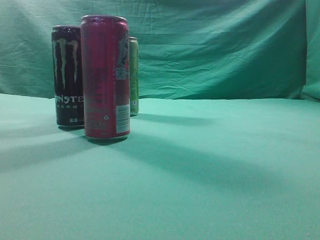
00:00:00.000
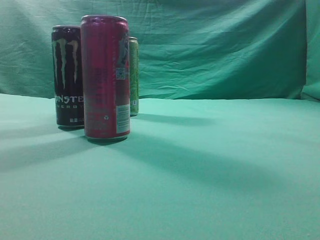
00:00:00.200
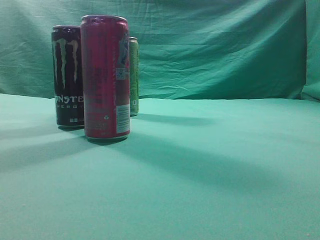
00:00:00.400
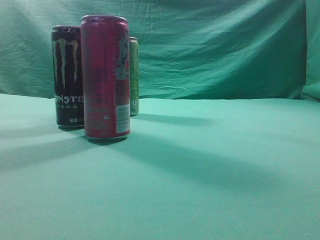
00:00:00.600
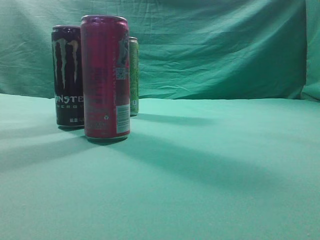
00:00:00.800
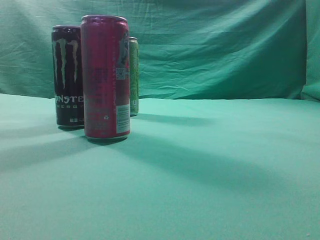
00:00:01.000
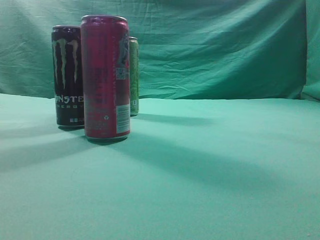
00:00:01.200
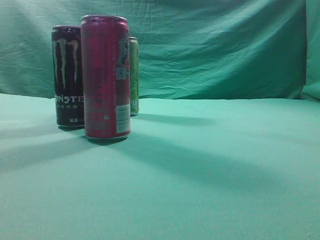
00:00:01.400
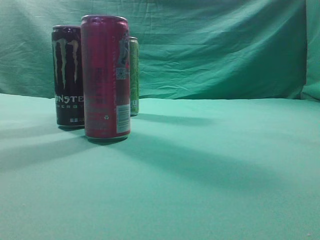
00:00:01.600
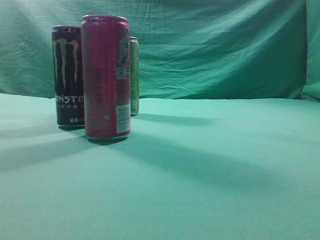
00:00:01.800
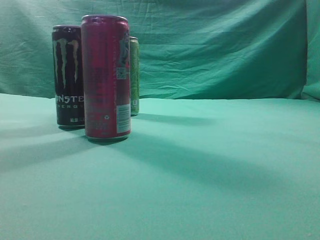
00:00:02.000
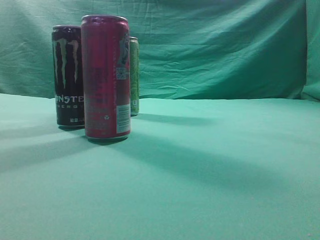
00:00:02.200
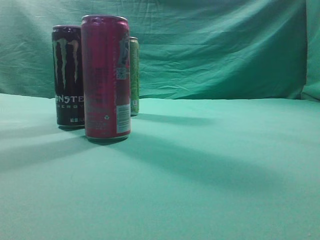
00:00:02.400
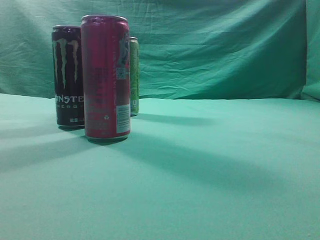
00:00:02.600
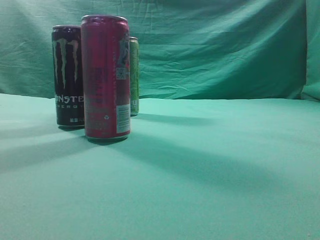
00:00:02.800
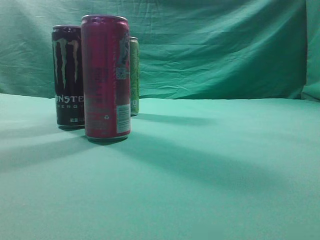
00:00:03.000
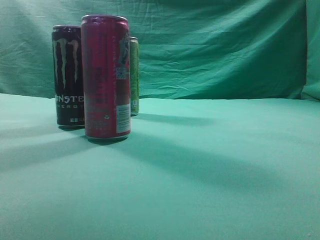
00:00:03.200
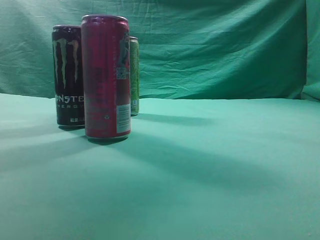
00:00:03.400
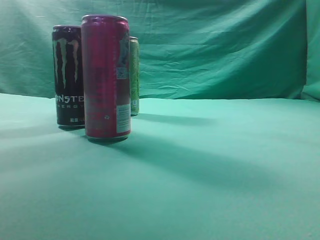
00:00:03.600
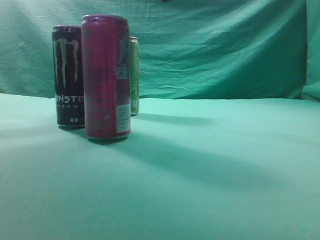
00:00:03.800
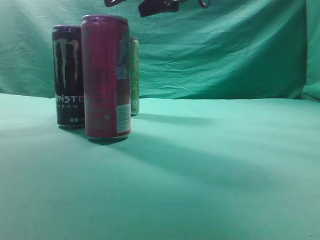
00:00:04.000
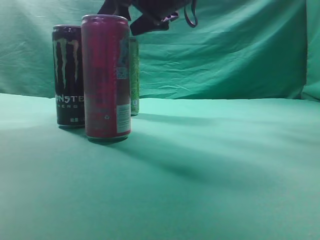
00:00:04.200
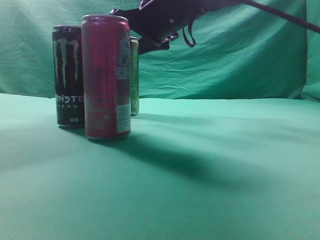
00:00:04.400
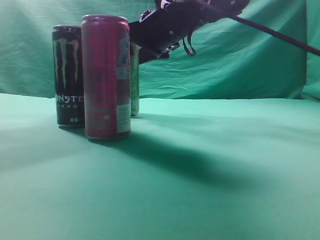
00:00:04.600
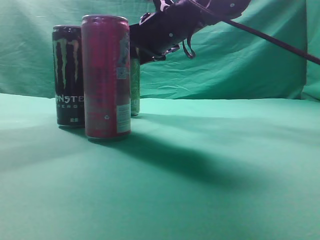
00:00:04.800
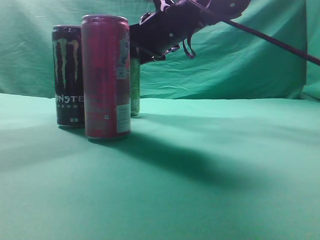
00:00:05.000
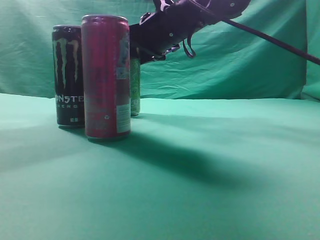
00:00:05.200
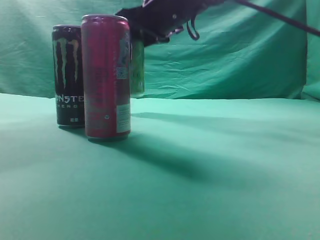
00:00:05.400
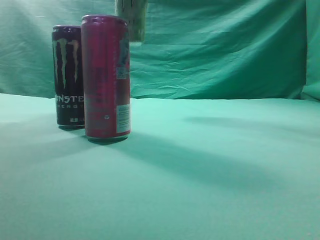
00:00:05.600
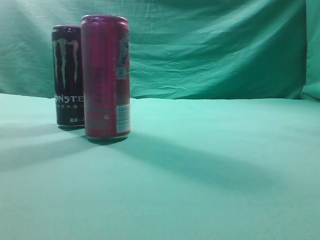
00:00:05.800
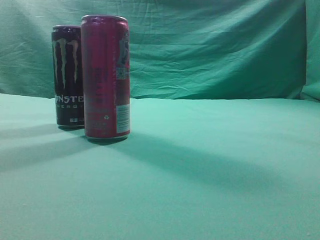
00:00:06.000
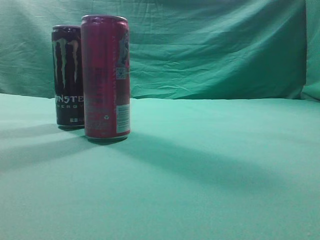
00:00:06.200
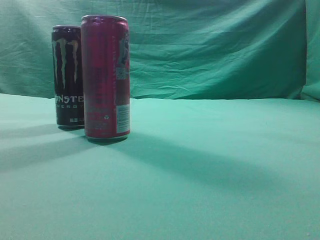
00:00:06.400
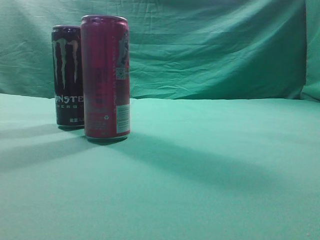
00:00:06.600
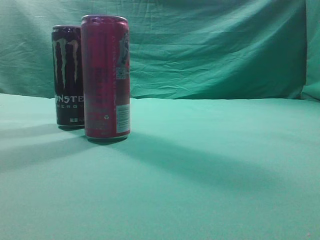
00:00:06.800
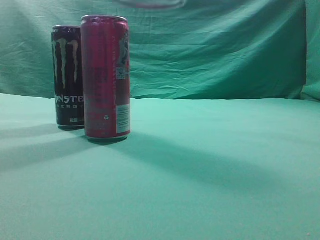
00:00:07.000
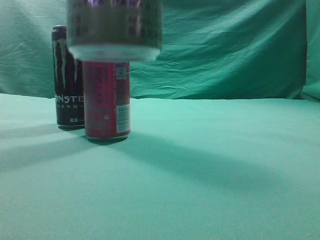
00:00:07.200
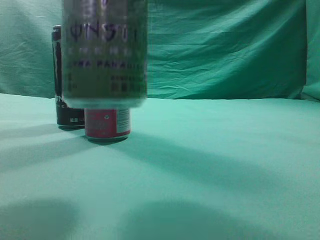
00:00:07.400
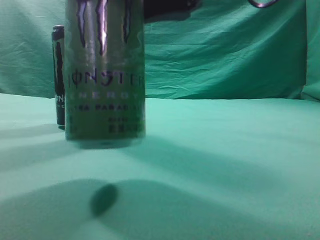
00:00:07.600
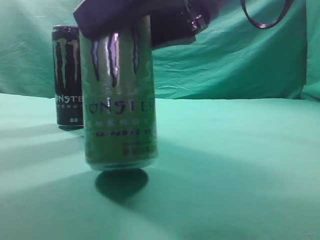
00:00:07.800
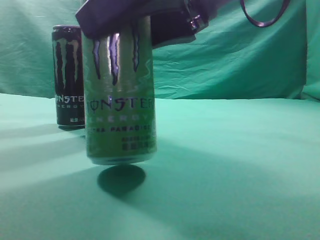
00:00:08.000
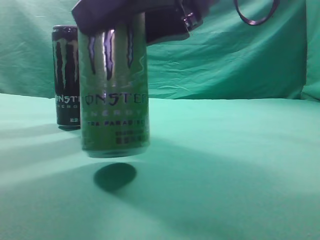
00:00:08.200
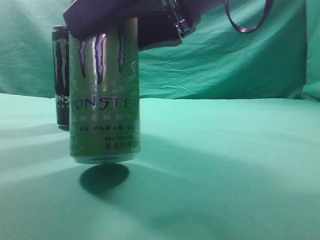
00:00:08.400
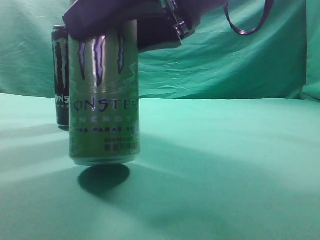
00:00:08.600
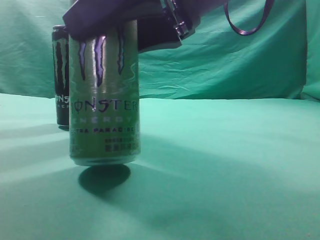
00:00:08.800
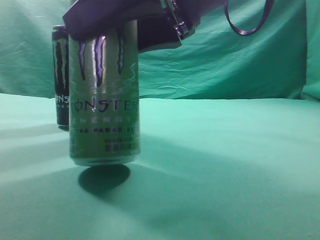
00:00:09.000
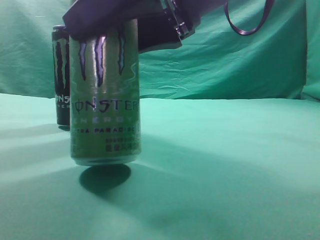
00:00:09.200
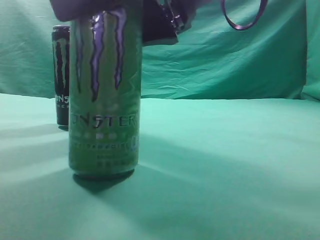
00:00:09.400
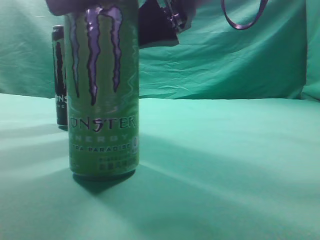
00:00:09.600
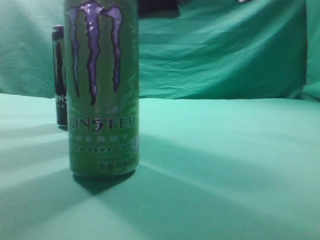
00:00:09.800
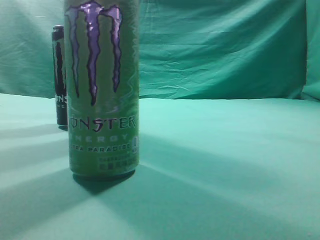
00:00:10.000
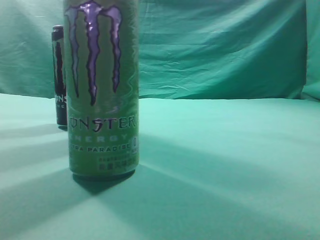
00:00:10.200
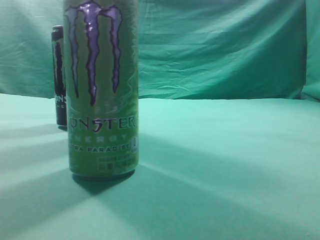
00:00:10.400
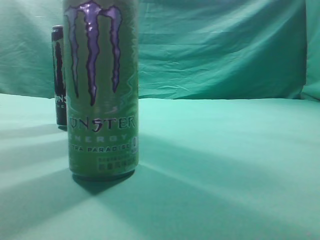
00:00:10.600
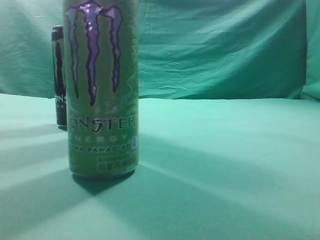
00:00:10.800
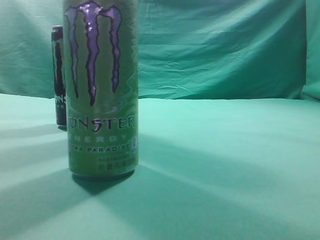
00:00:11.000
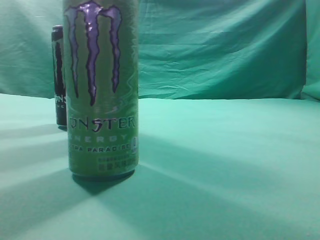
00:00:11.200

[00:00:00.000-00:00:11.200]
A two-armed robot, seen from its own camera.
Task of the whole recording: move one drink among three beverages.
Step, 00:00:00.000 to 00:00:05.400: Grasp the beverage bottle placed at the back of the desk.
Step, 00:00:05.600 to 00:00:09.600: Place the beverage bottle to the front of the table.
00:00:01.600 to 00:00:03.200: The right gripper goes some 25 cm forward, to the left and upward, and opens up.
00:00:03.200 to 00:00:04.800: The right gripper heads forward, to the left and downward, covering roughly 25 cm.
00:00:04.800 to 00:00:06.400: The right gripper heads upward, backward and to the right, covering roughly 35 cm.
00:00:06.400 to 00:00:08.000: The right gripper goes approximately 25 cm downward.
00:00:08.000 to 00:00:09.600: Both grippers stay about where they are.
00:00:09.600 to 00:00:11.200: The right gripper travels upward, to the right and backward by some 25 cm, and closes up.
